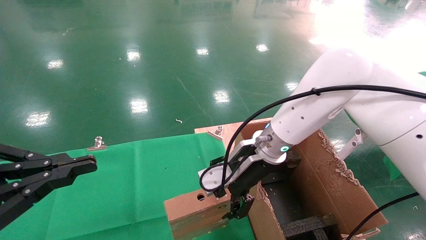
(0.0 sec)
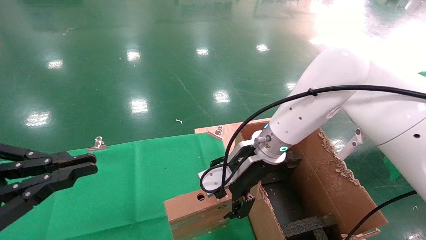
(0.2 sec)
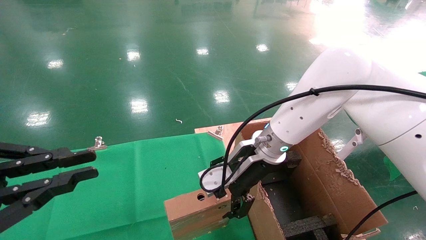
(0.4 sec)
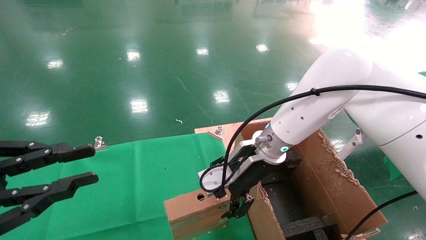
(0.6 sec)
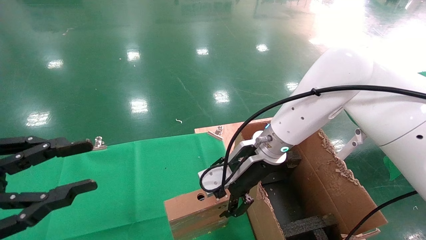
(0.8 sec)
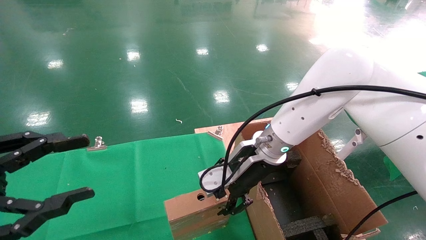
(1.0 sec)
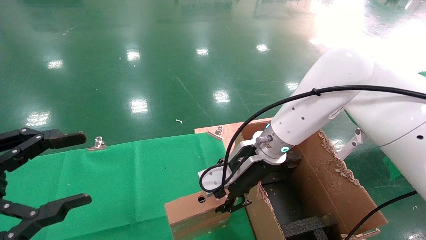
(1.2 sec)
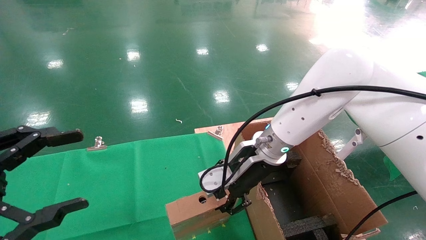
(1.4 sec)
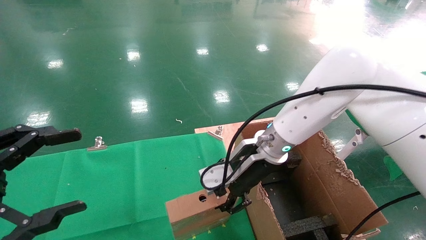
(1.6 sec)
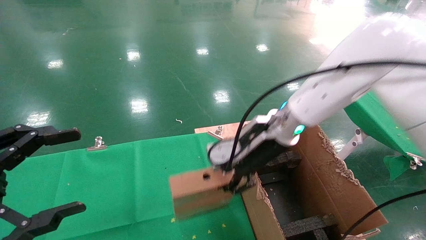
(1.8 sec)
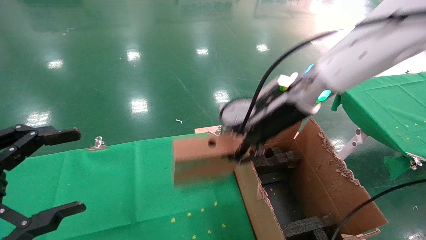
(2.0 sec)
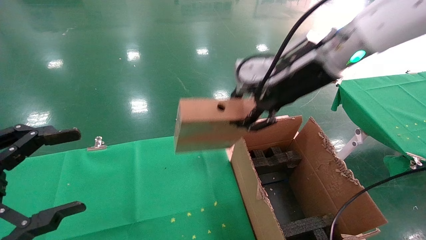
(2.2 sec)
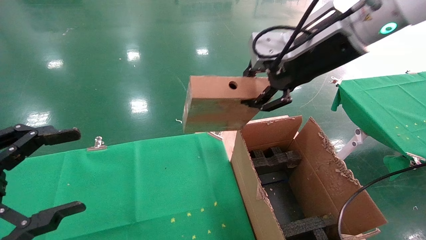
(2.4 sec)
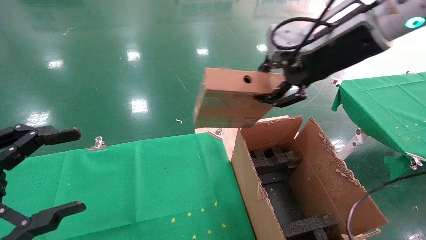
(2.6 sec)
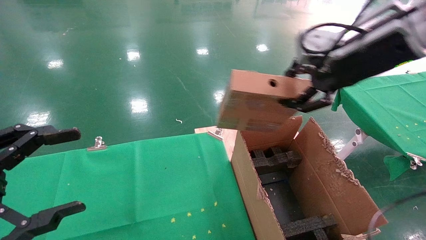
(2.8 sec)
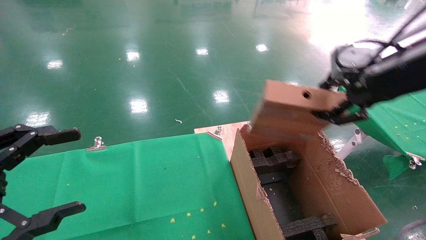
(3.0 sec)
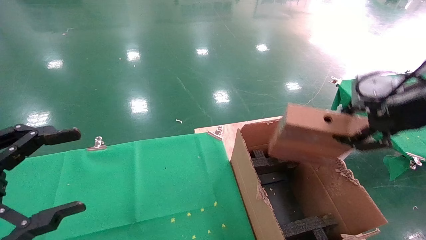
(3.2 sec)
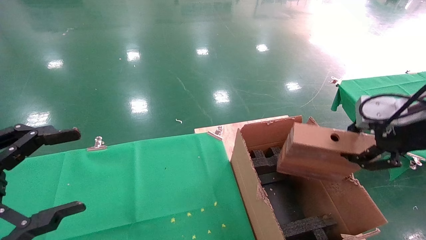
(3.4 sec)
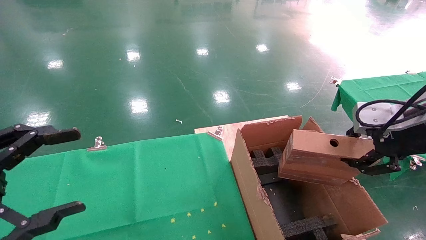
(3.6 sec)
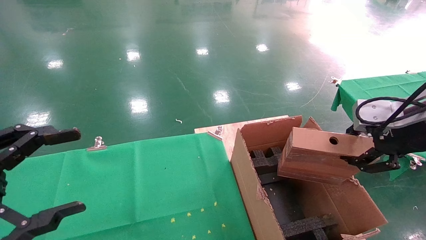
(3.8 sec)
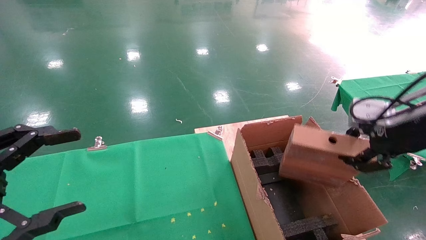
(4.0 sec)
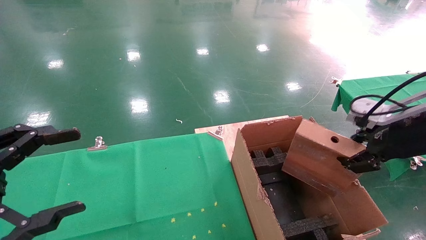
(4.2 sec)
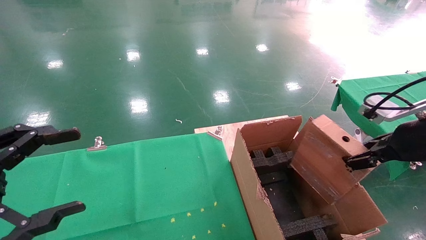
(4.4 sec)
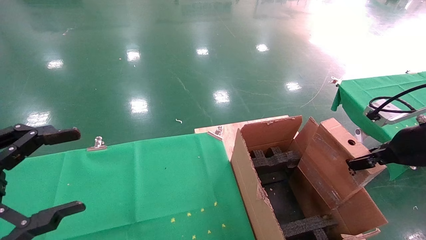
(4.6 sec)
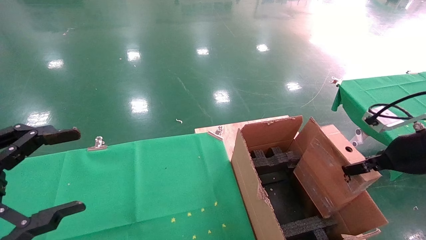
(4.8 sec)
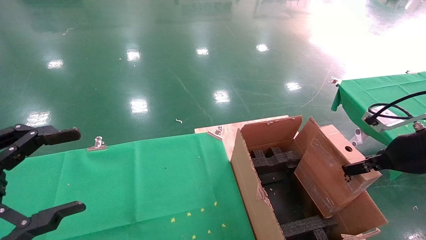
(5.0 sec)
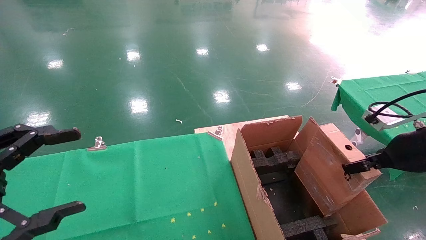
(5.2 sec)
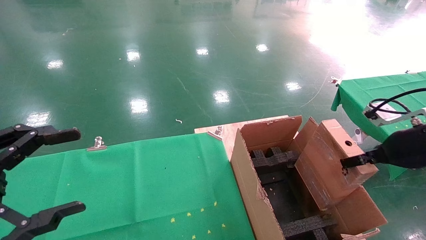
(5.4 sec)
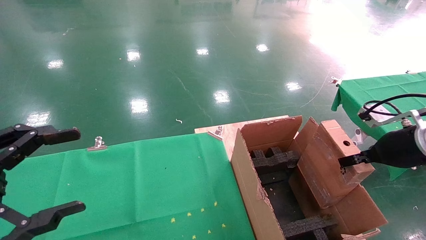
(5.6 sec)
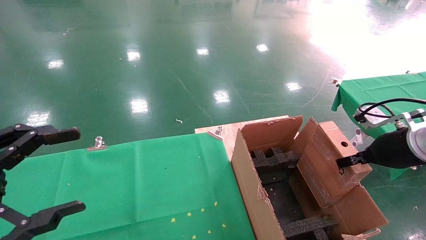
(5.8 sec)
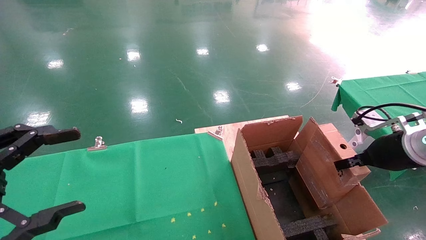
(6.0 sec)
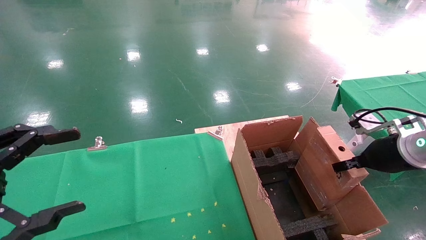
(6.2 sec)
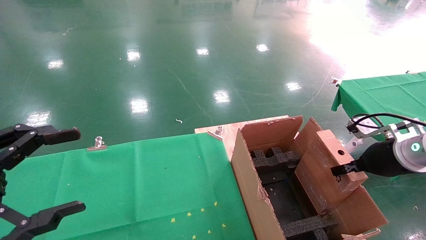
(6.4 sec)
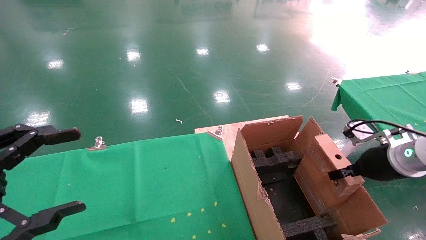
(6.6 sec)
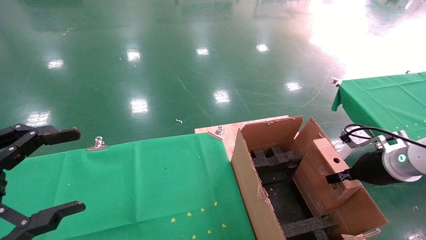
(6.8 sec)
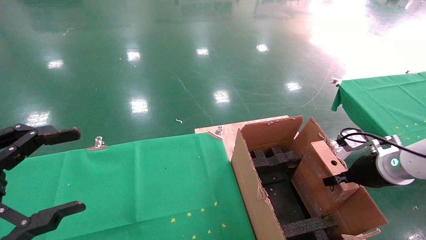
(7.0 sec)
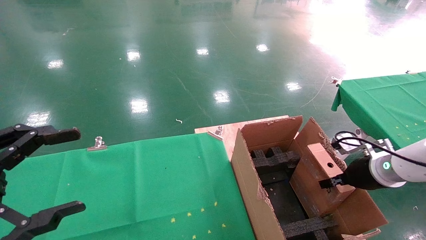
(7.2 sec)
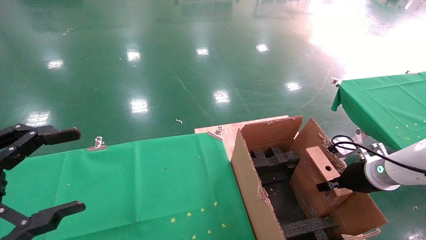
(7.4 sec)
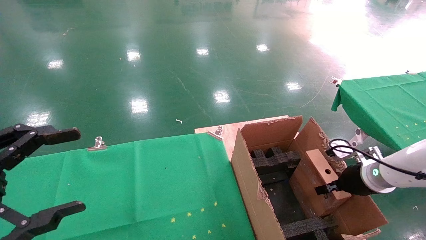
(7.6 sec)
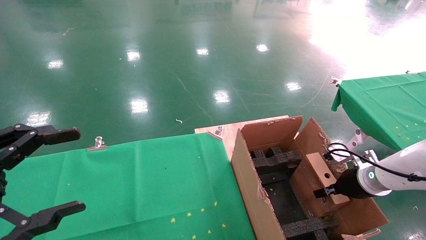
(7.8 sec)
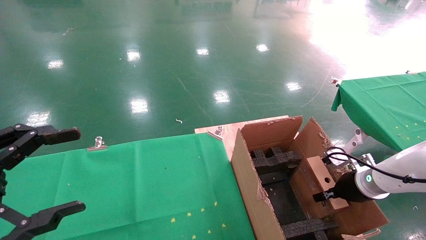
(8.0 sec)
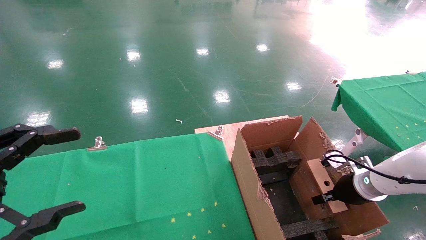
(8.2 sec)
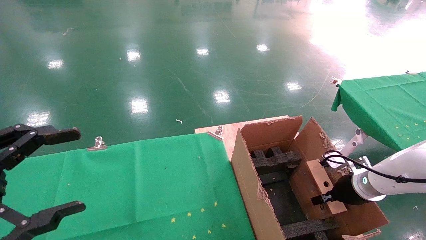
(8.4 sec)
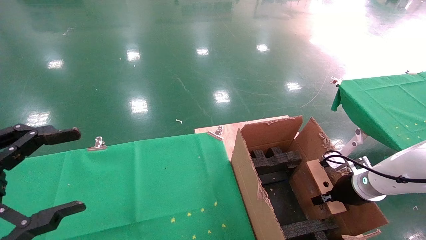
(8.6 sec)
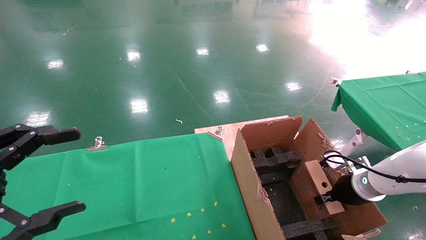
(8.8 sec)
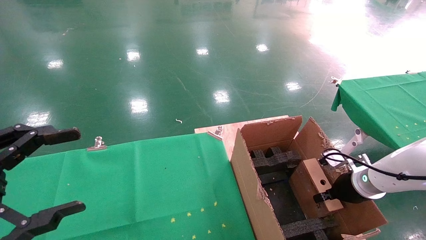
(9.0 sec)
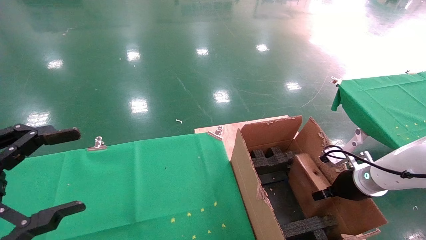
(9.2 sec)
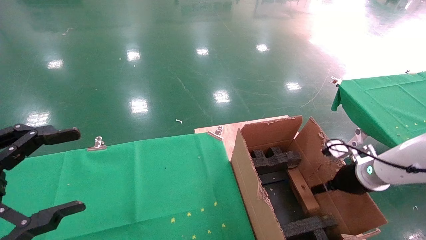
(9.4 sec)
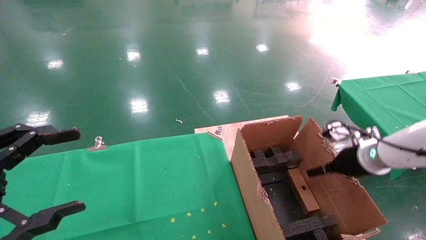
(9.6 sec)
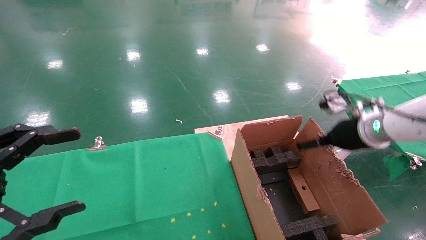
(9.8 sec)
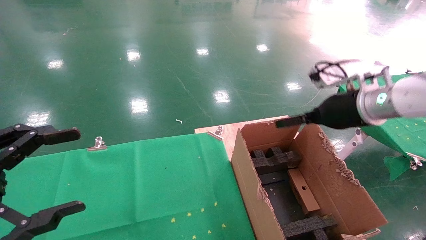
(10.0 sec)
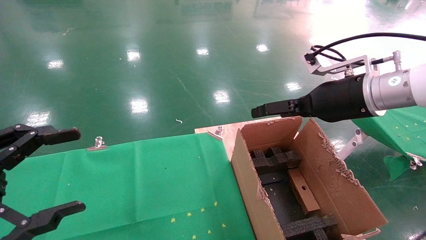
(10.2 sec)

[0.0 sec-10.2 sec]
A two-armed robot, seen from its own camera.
Task of the whole recording: using a robotic arm to pick up a cardboard box and palace it the carton.
Step, 1.2 sec to 9.2 sec: Place the mouse and the power cord paper box into the container.
0.0 sec to 1.4 sec: The right gripper closes up, while the left gripper opens its fingers.
1.4 sec to 3.0 sec: The right gripper heads to the right, upward and backward, covering about 30 cm.
3.0 sec to 4.4 sec: The right gripper heads downward and to the right, covering some 15 cm.
4.4 sec to 5.8 sec: The right gripper ends up roughly 5 cm from where it was.
5.8 sec to 7.2 sec: The right gripper shifts roughly 10 cm downward.
7.2 sec to 8.8 sec: The right gripper shifts about 5 cm downward.
8.8 sec to 10.2 sec: The right gripper moves upward and to the left, about 25 cm, and opens its fingers.

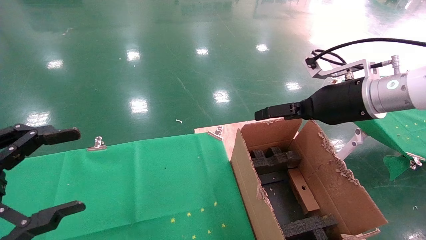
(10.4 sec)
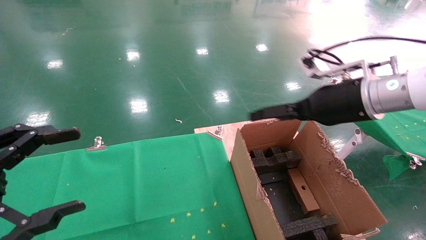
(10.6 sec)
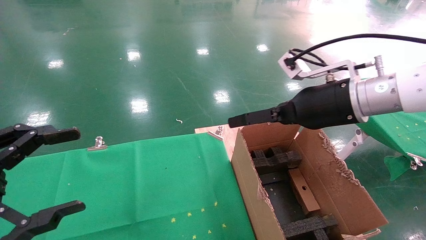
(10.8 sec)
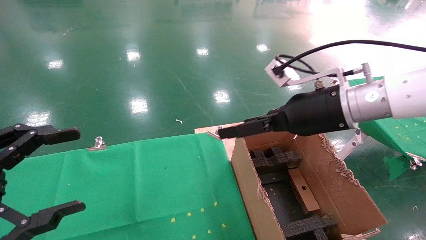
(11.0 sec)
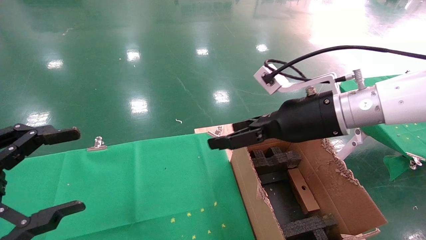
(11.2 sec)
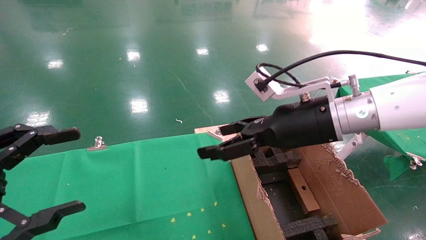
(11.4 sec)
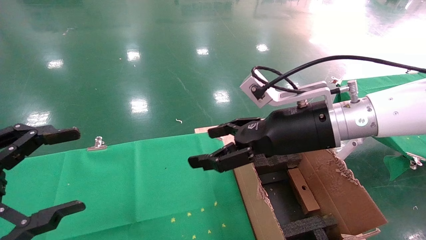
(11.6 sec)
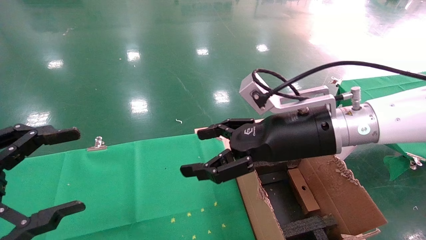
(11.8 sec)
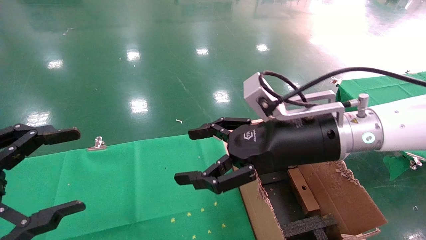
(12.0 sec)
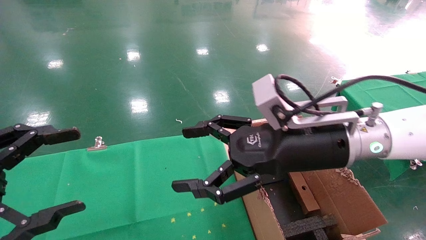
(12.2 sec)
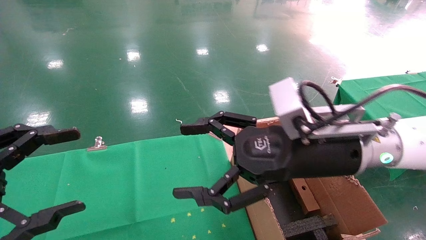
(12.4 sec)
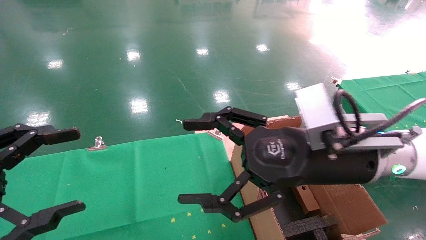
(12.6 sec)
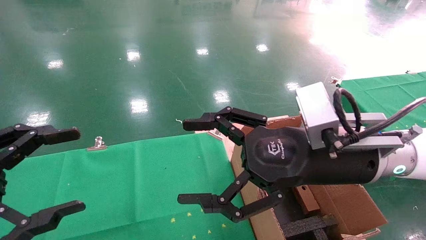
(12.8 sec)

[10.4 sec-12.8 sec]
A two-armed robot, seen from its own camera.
Task of the whole recording: using a robotic arm to pick up a cardboard box and palace it the carton.
10.4 sec to 11.6 sec: The right gripper shifts about 10 cm to the left.
11.6 sec to 12.8 sec: The right gripper heads backward, covering some 5 cm.
